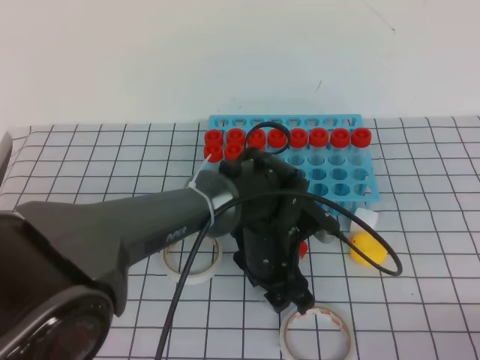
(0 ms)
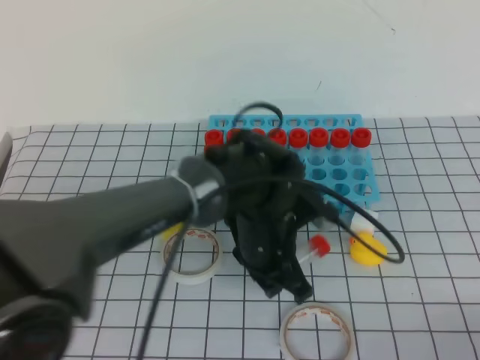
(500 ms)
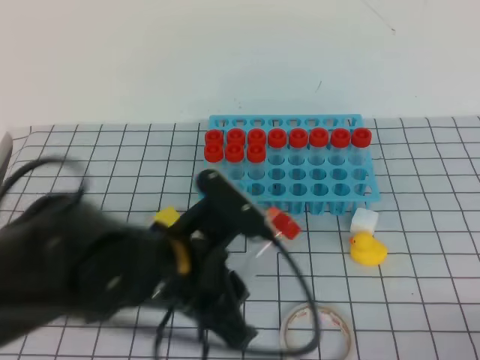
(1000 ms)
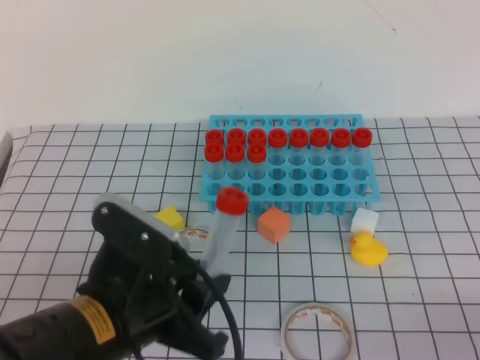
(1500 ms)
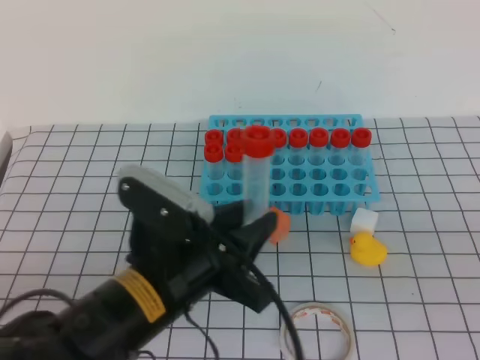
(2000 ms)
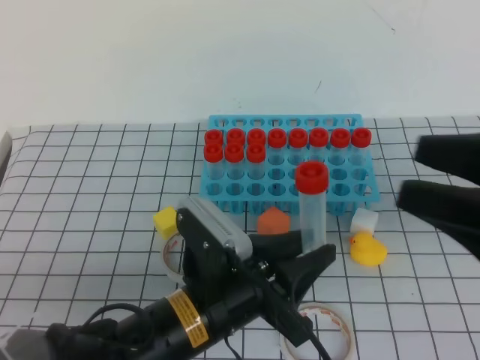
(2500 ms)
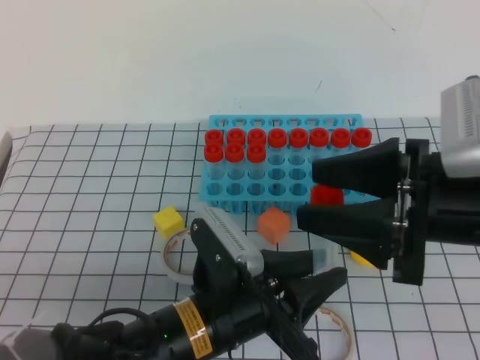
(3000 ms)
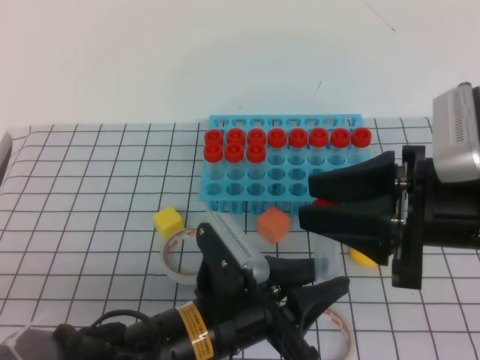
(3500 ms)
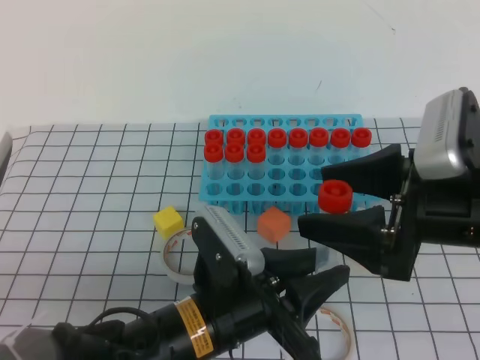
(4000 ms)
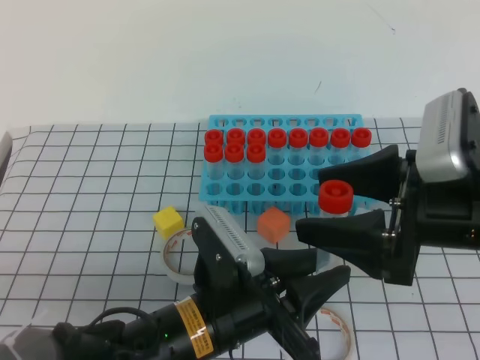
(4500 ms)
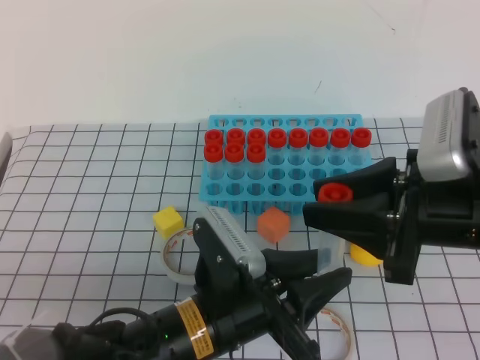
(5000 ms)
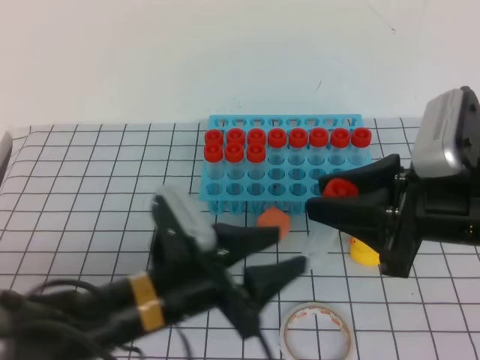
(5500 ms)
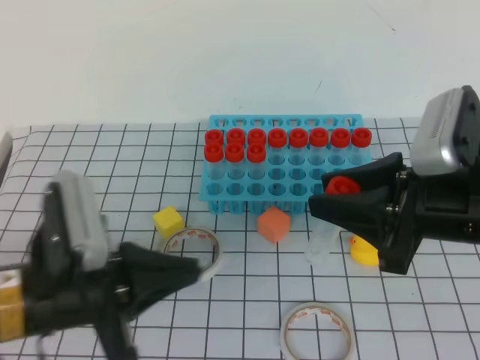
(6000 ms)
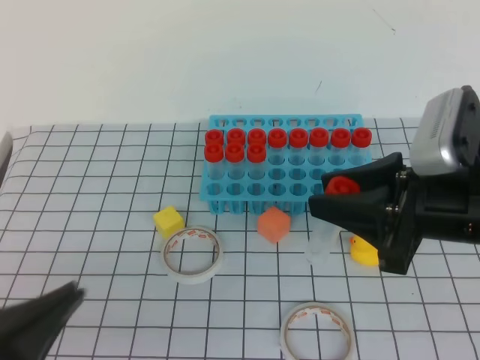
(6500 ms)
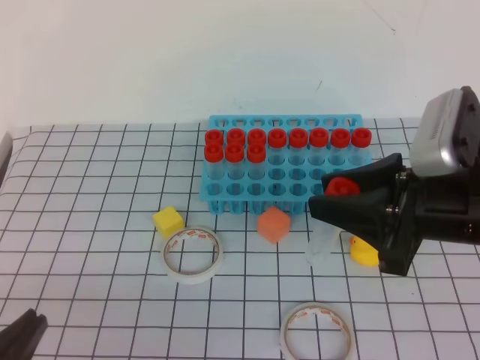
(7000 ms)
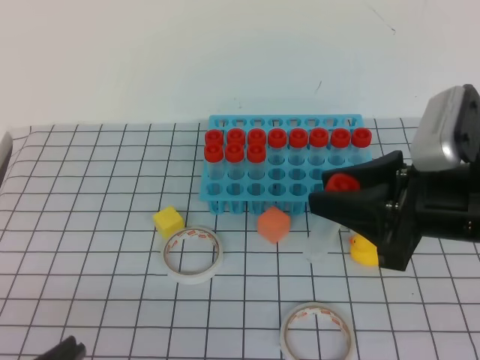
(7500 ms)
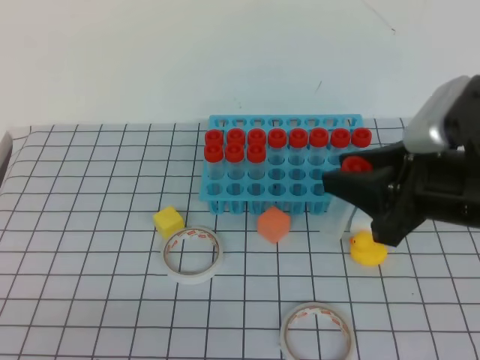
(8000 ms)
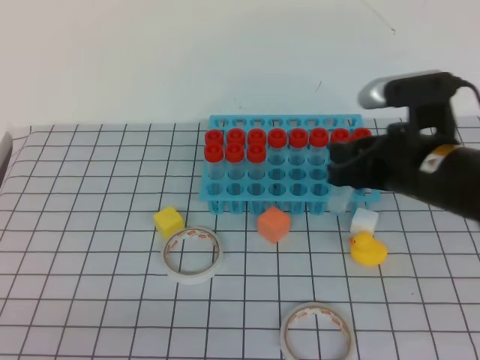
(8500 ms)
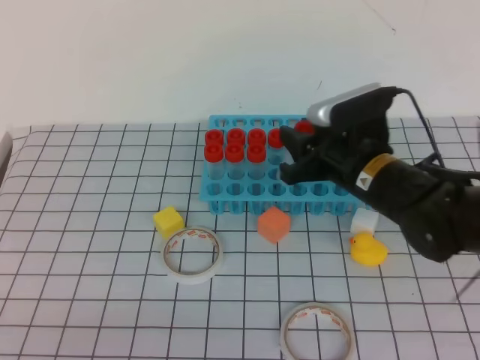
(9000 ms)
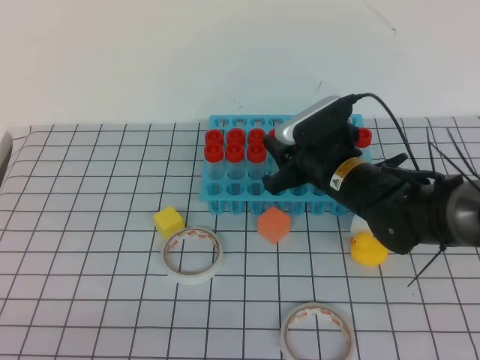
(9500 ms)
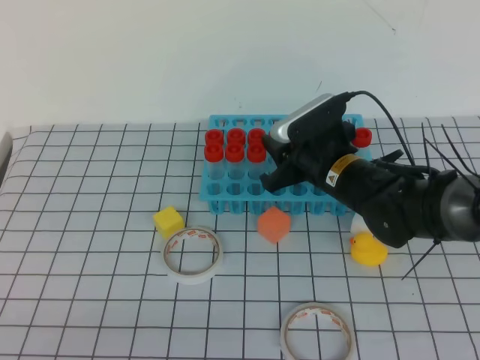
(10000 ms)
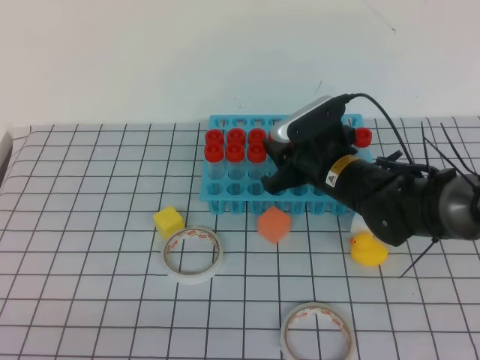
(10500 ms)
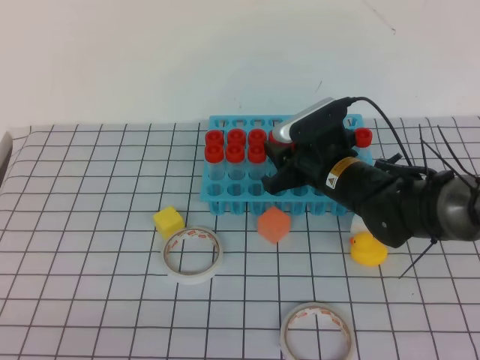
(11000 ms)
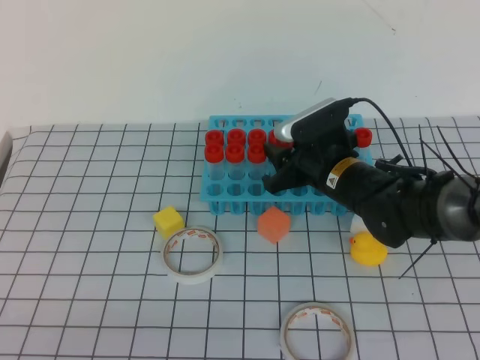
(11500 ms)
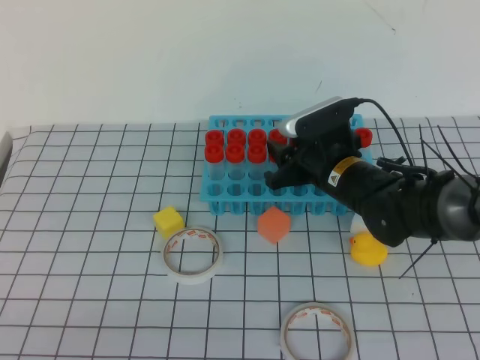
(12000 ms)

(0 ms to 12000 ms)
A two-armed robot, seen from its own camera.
0 ms - 2000 ms: The right gripper is displaced upward by about 10 cm. The left gripper travels backward, to the left and upward by approximately 20 cm, and closes up.
2000 ms - 4000 ms: The right gripper shifts some 20 cm forward and to the left, and opens up, while the left gripper heads downward, covering about 5 cm.
4000 ms - 6000 ms: The right gripper closes up; the left gripper heads to the left and upward, covering some 15 cm, and closes.
6000 ms - 8000 ms: The left gripper is displaced backward by roughly 15 cm.
8000 ms - 10000 ms: The right gripper heads forward, downward and to the left, covering some 20 cm.
10000 ms - 12000 ms: The grippers move only a little.

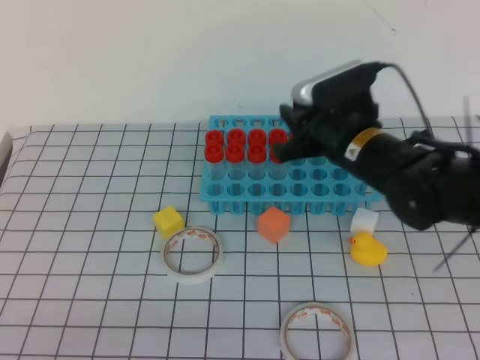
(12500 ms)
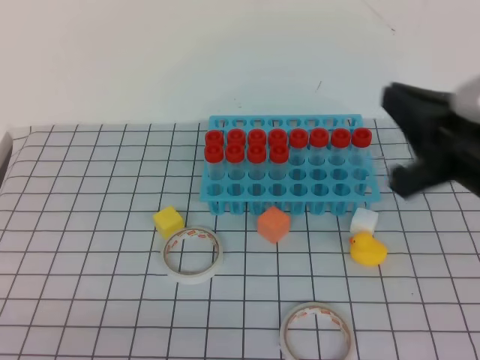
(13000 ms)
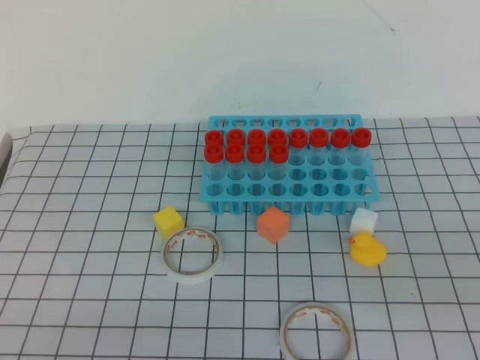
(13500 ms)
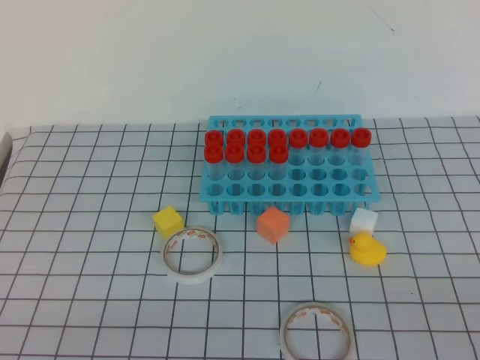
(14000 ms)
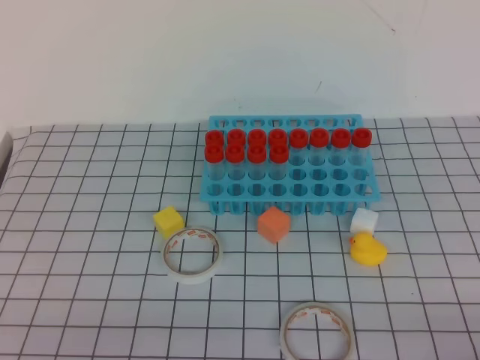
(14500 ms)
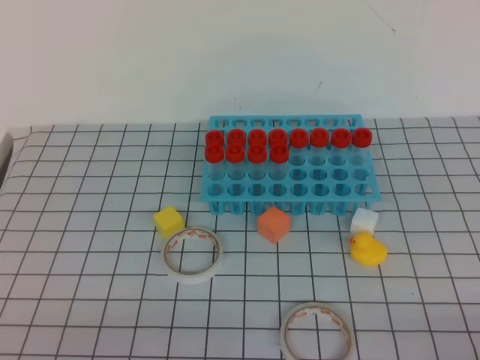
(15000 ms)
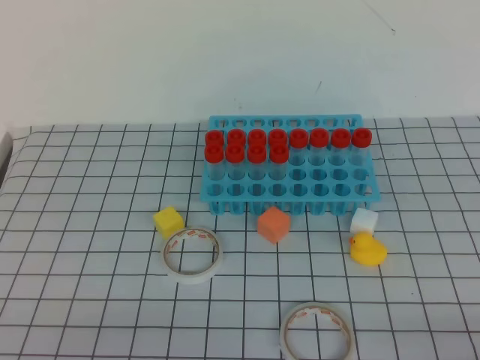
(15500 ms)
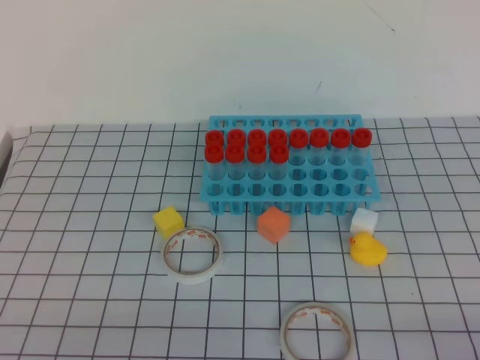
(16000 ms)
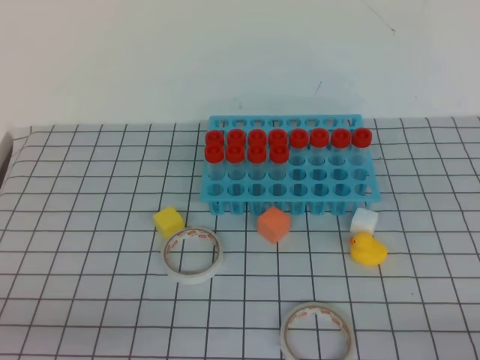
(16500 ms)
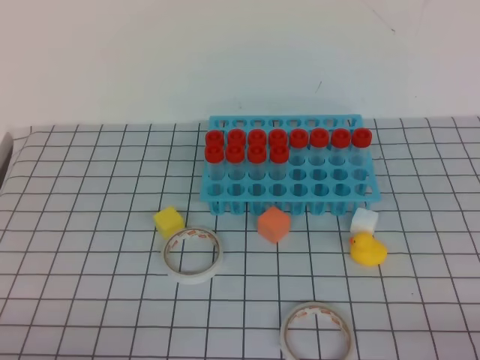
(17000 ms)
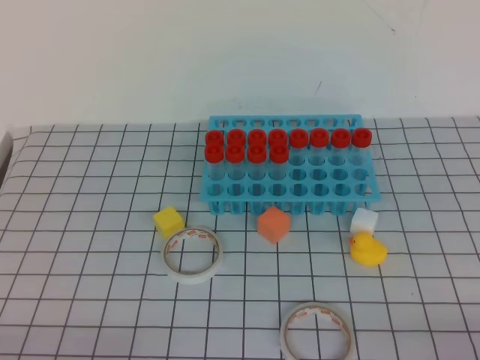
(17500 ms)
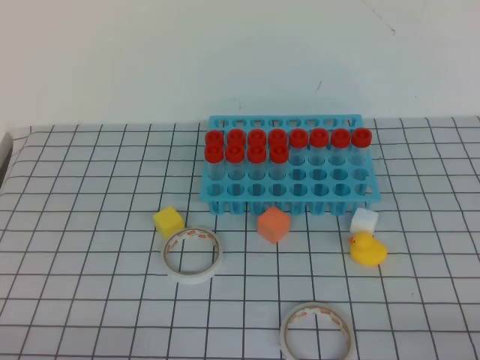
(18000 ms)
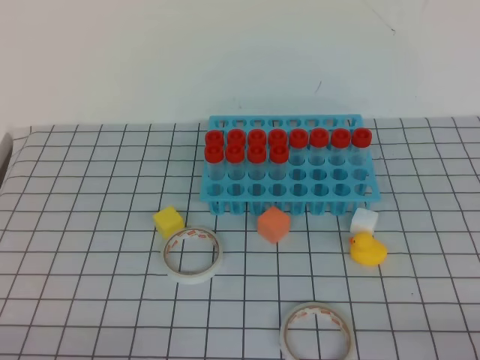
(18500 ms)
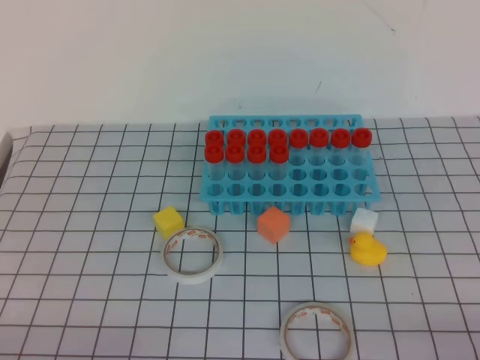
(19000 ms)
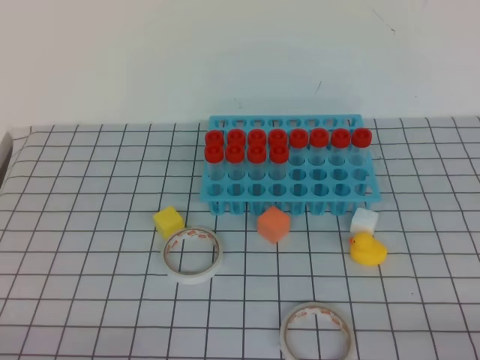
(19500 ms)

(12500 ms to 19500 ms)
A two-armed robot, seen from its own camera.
12500 ms - 14500 ms: The right gripper moves backward and to the right, approximately 40 cm.
17500 ms - 19500 ms: Neither gripper changes place.

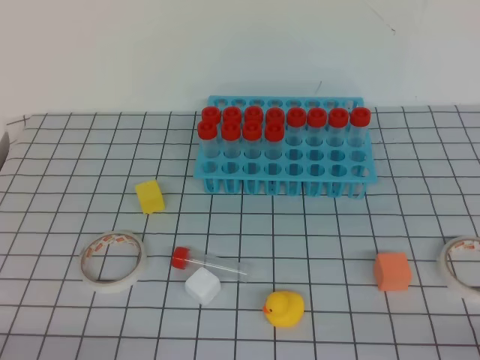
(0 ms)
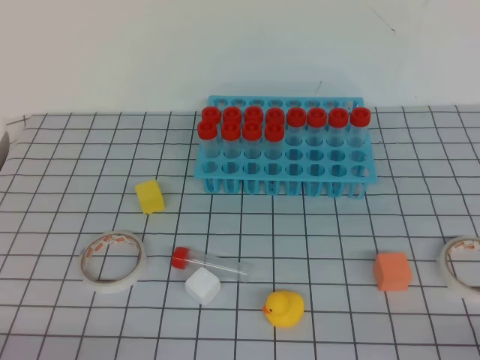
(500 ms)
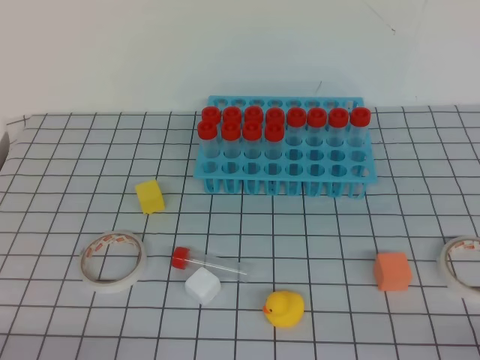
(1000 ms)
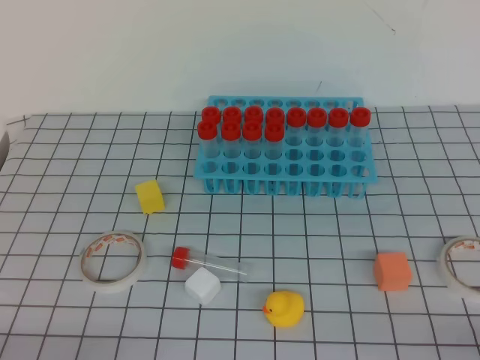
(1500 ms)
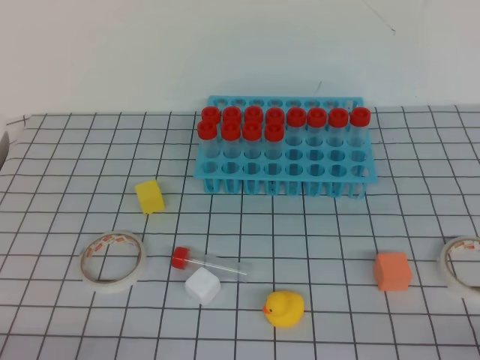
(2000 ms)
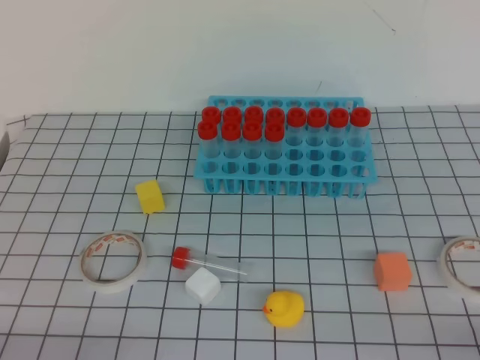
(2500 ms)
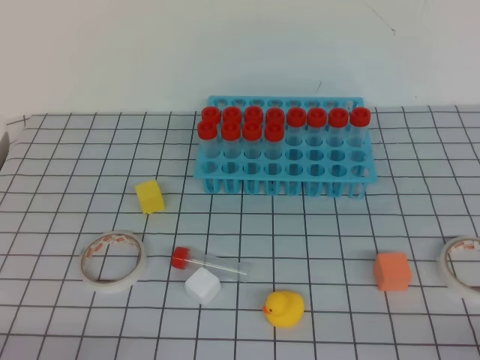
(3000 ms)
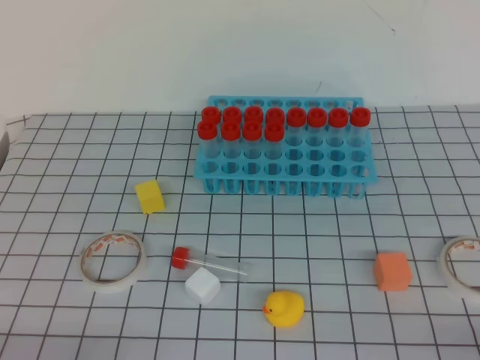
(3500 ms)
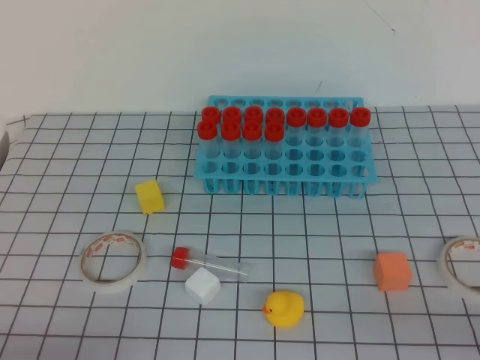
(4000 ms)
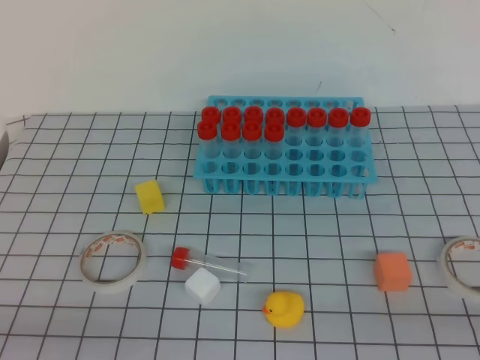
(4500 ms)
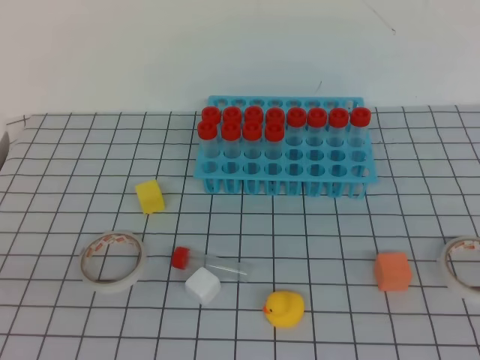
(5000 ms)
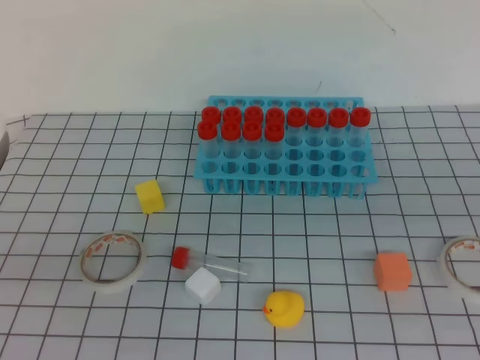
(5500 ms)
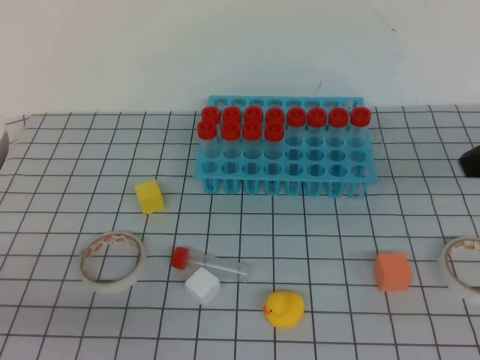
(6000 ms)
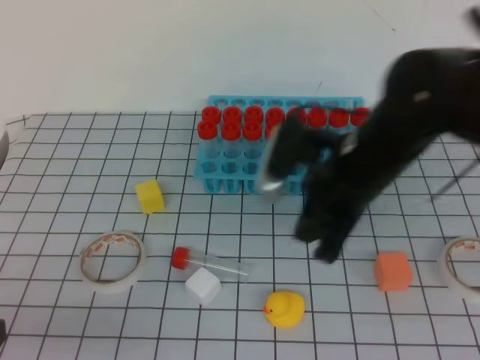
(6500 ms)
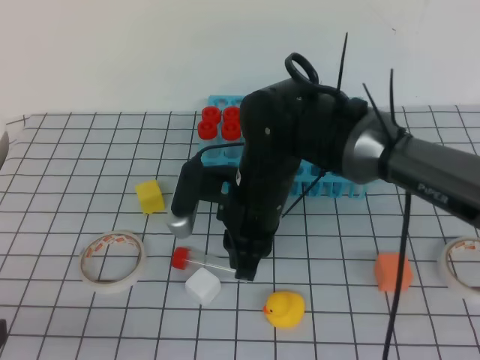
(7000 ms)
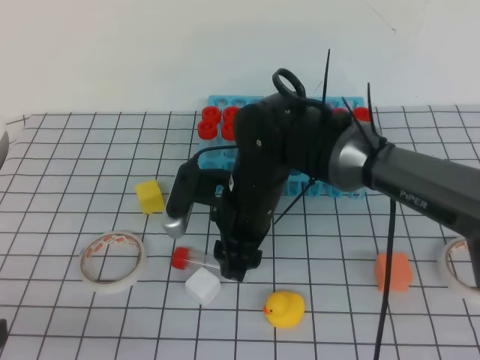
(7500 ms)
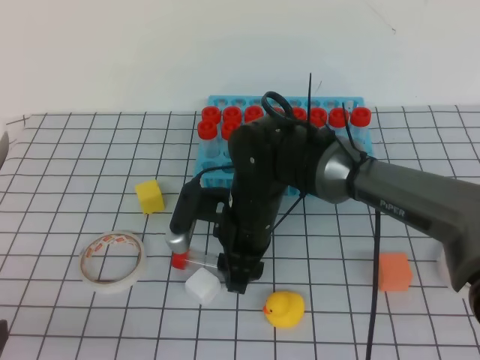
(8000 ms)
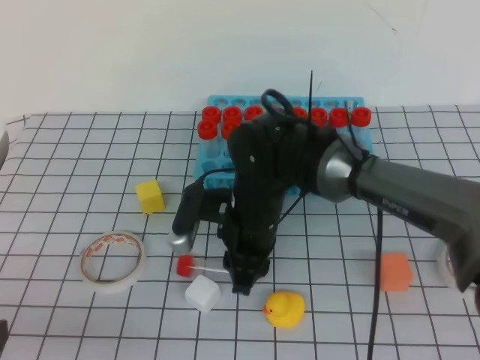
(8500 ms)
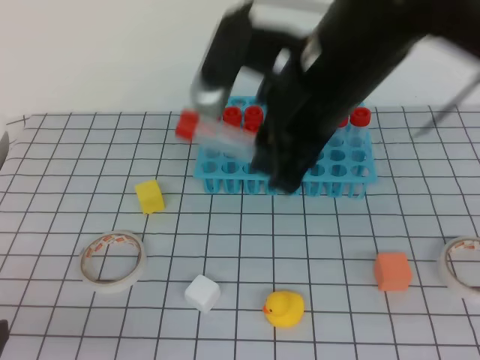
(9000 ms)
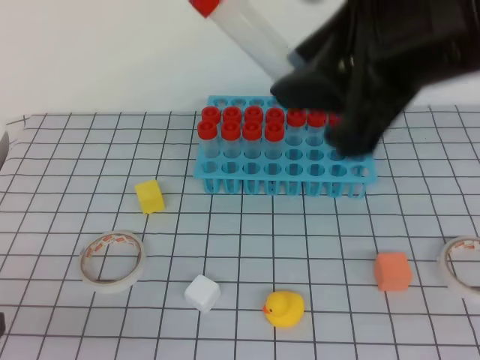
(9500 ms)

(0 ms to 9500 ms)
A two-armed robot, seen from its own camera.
0 ms - 2000 ms: The two grippers keep their place.
4000 ms - 5500 ms: The left gripper moves upward, roughly 10 cm.
5500 ms - 7500 ms: The left gripper heads downward, covering about 5 cm. The right gripper heads to the left, forward and downward, covering roughly 40 cm, and opens its fingers.
7500 ms - 9500 ms: The right gripper travels upward, backward and to the right by about 30 cm, and closes its fingers.
